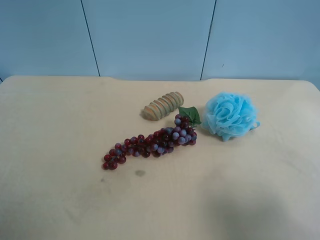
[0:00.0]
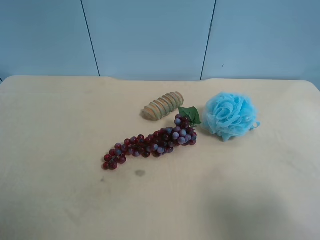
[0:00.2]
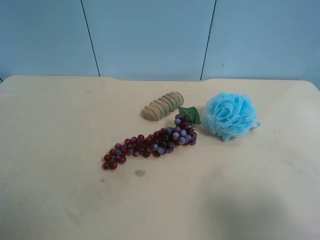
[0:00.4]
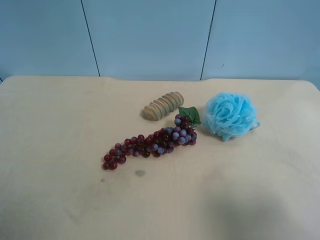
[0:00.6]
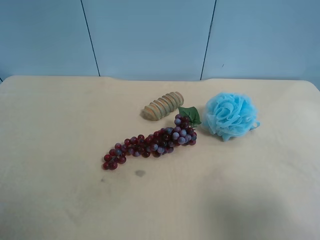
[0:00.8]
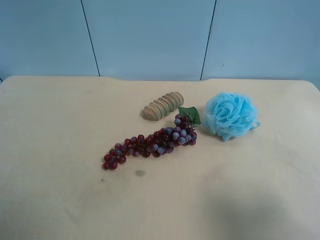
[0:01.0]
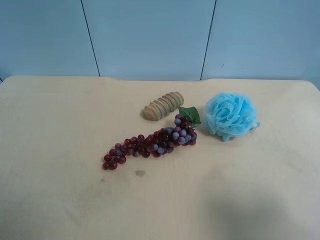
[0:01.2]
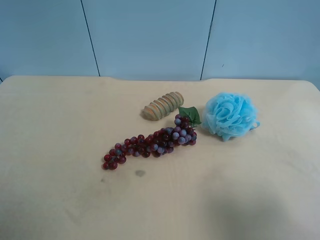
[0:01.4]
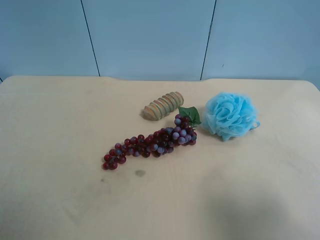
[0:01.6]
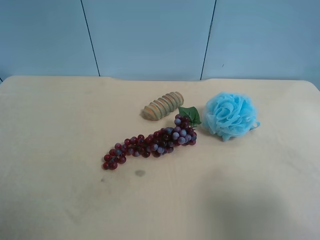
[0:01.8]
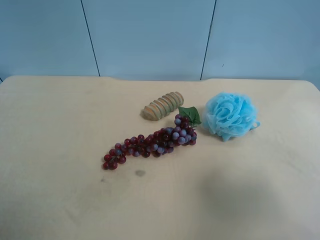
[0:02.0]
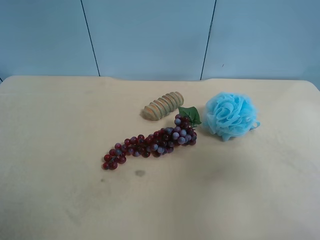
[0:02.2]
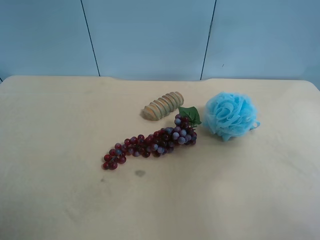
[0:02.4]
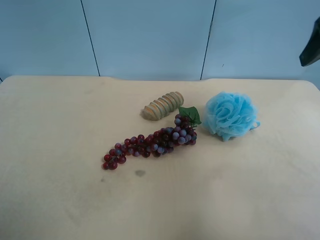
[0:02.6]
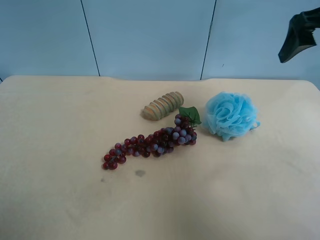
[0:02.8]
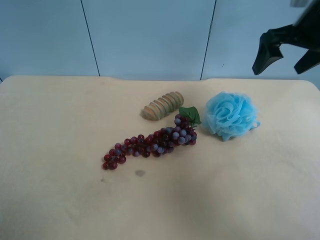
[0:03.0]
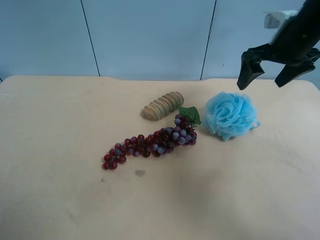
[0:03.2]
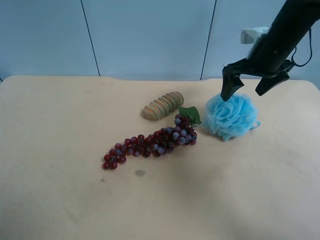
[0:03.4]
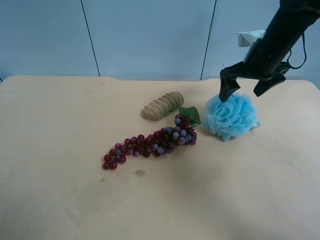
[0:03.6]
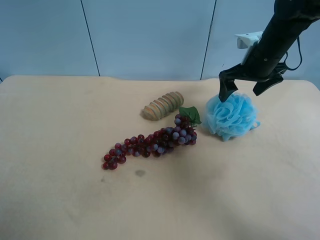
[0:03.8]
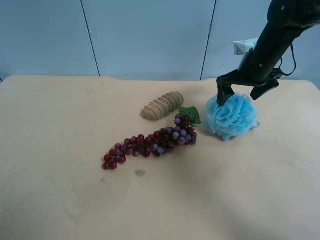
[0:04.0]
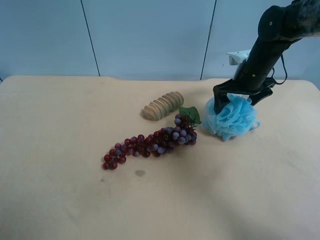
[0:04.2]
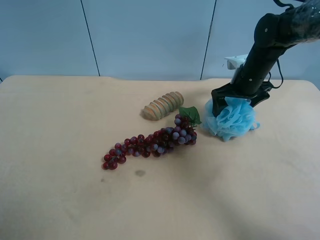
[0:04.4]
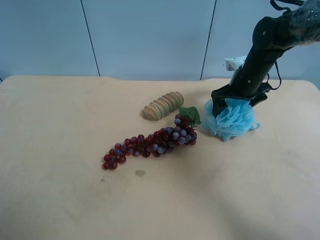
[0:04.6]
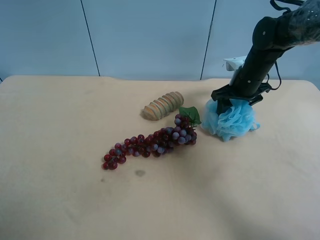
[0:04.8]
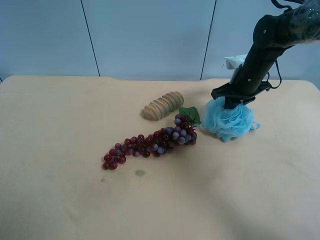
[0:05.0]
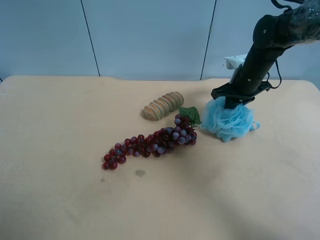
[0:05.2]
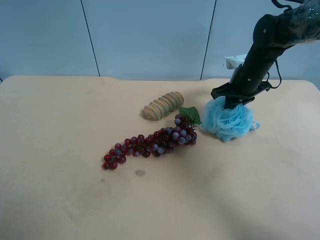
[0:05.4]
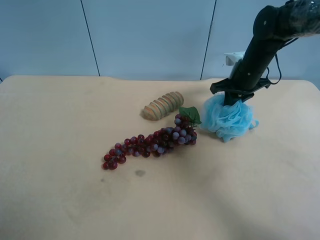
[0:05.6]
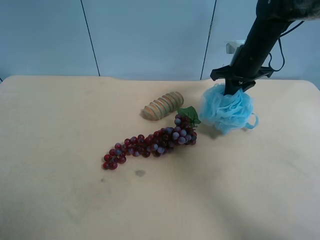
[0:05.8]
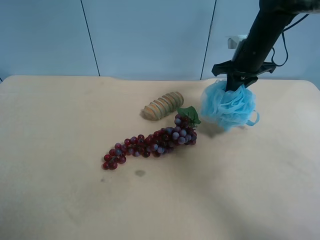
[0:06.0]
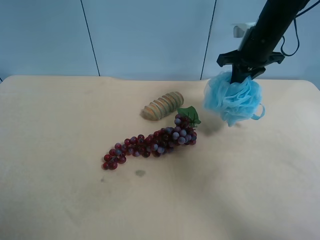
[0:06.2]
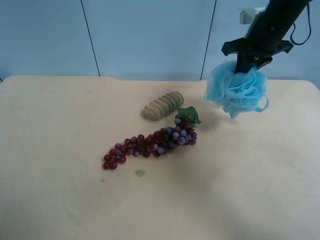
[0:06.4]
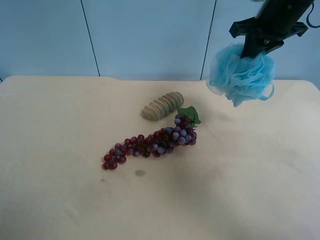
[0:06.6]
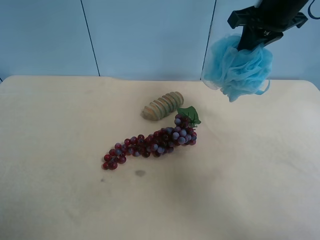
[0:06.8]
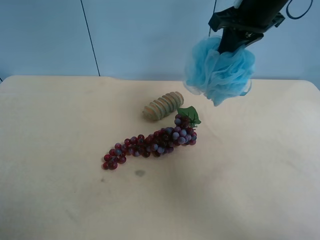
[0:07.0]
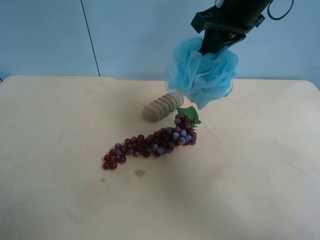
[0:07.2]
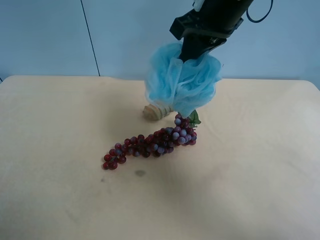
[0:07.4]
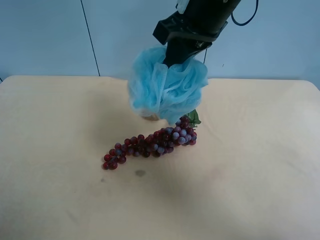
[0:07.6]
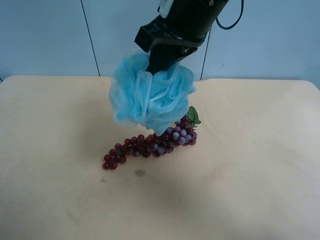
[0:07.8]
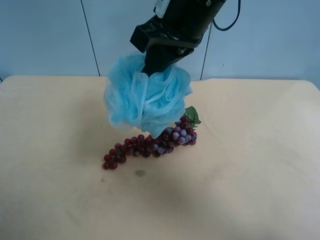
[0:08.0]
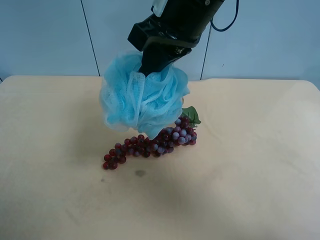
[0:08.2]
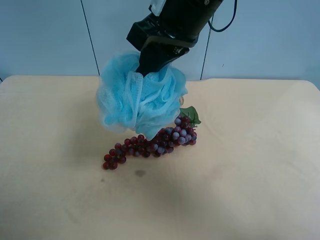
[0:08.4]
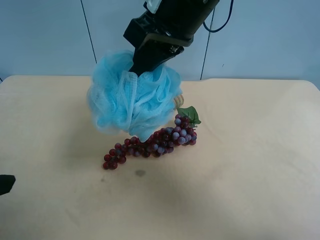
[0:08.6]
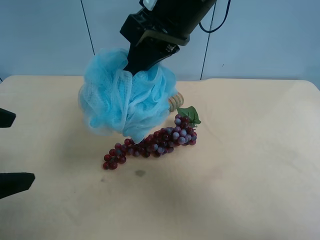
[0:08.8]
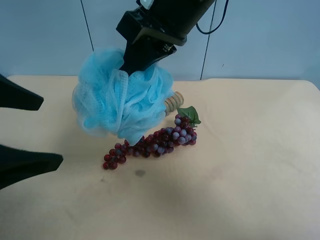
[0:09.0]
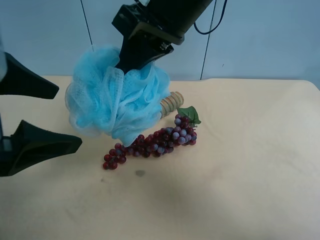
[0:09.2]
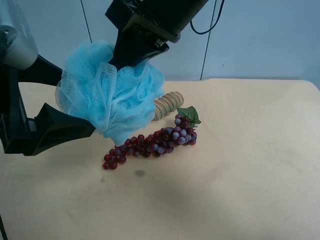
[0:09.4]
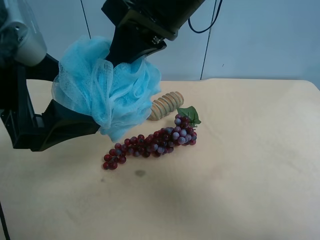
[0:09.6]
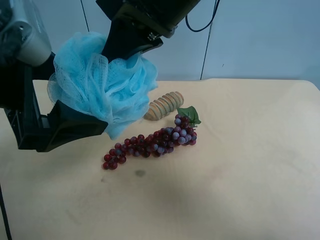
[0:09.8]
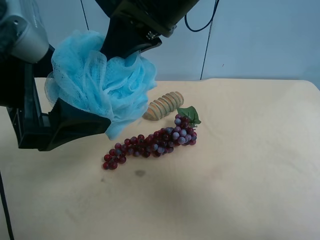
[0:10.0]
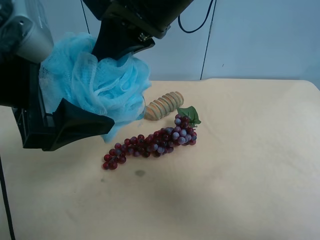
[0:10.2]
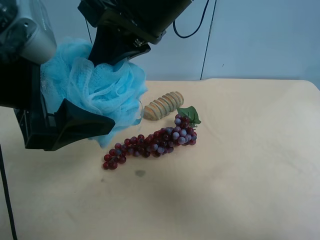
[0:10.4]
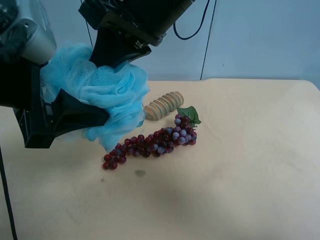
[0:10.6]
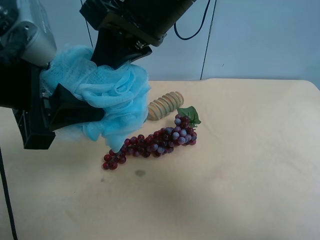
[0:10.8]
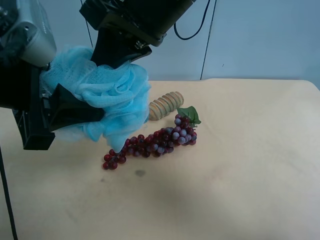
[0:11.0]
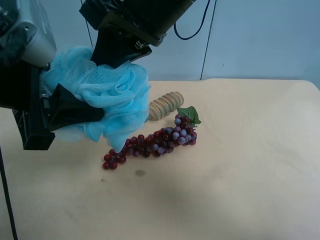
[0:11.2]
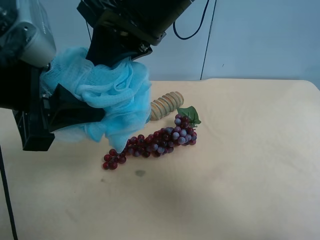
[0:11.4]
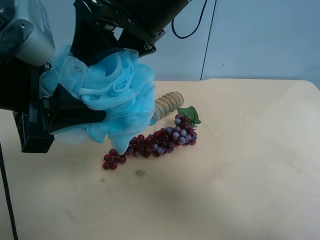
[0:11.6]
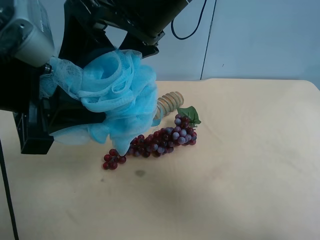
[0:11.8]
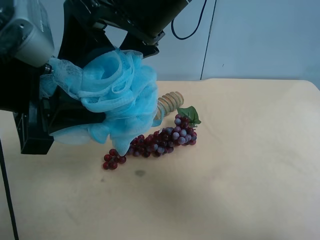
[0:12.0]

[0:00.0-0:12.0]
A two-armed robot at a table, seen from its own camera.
Task of the whole recording: use the right gripper to pick up the item and transfer it from the right gripper to the left gripper.
0:00.0 to 0:01.6: Neither gripper changes place.
0:01.6 to 0:03.0: The right gripper shifts about 35 cm forward.
0:03.0 to 0:04.4: The right gripper shifts some 15 cm downward and forward.
0:04.4 to 0:06.0: The right gripper heads upward, covering about 5 cm, and closes up.
0:06.0 to 0:07.6: The right gripper goes some 20 cm to the left, backward and upward.
0:07.6 to 0:09.0: The left gripper is displaced forward and to the right by about 15 cm.
0:09.0 to 0:10.4: The left gripper ends up approximately 5 cm from where it was.
0:10.4 to 0:12.0: The right gripper opens its fingers. Meanwhile the left gripper closes up.

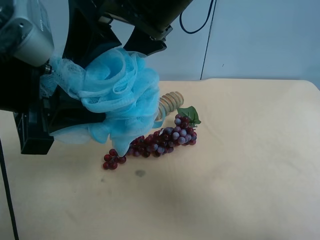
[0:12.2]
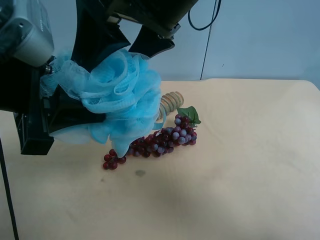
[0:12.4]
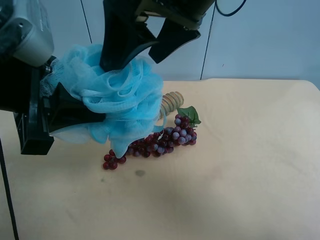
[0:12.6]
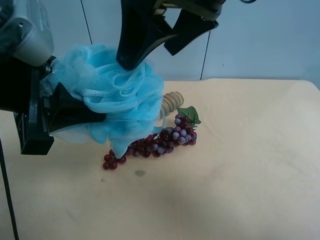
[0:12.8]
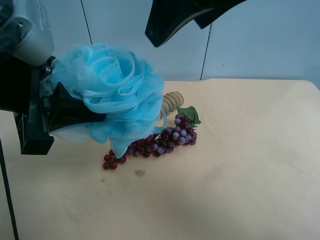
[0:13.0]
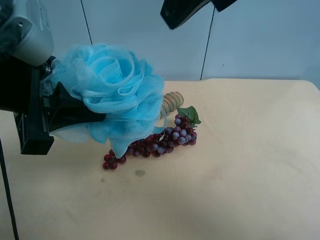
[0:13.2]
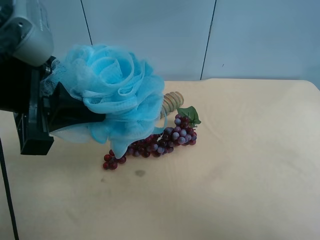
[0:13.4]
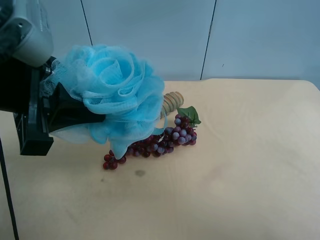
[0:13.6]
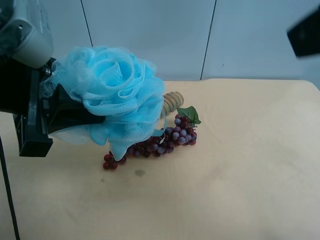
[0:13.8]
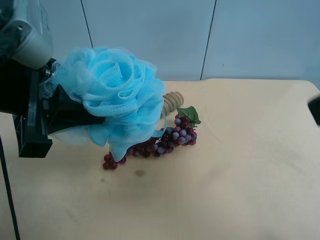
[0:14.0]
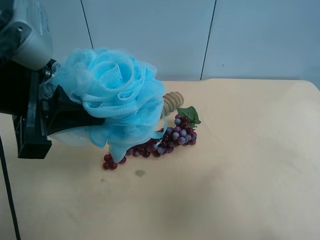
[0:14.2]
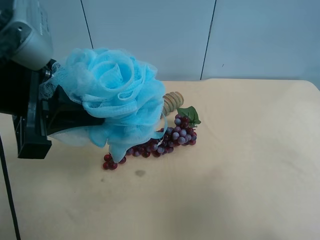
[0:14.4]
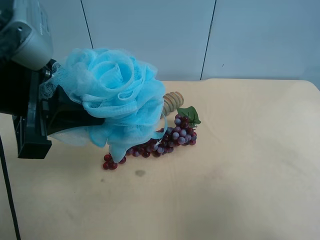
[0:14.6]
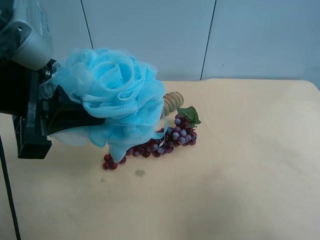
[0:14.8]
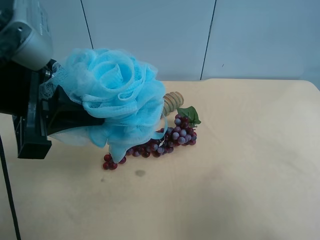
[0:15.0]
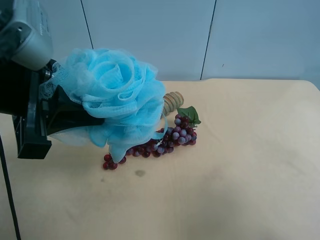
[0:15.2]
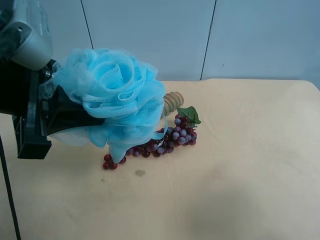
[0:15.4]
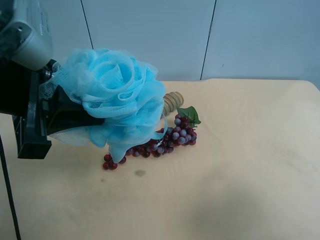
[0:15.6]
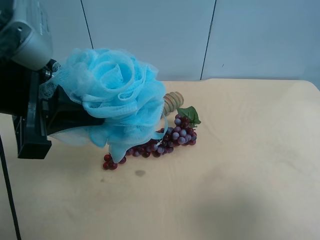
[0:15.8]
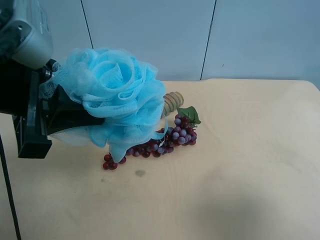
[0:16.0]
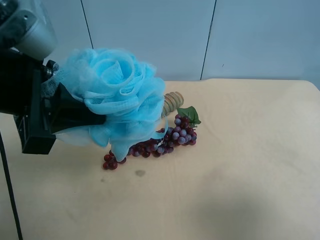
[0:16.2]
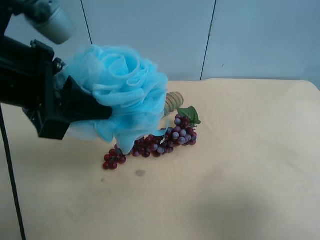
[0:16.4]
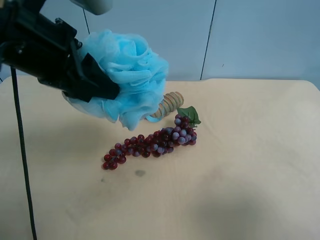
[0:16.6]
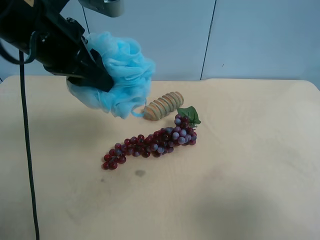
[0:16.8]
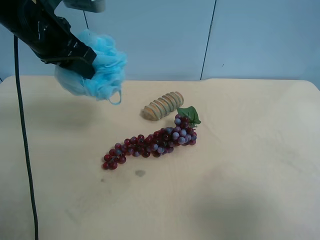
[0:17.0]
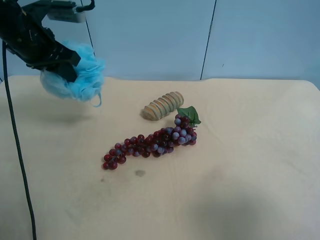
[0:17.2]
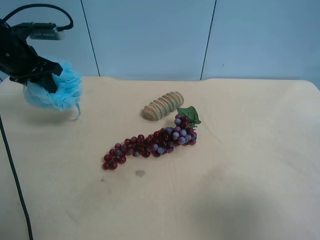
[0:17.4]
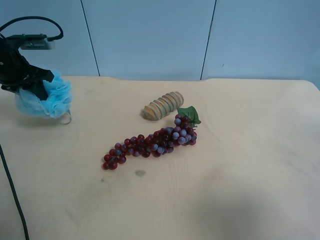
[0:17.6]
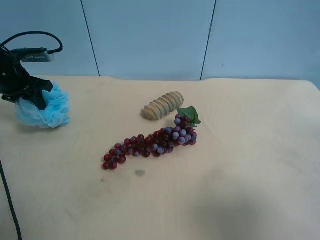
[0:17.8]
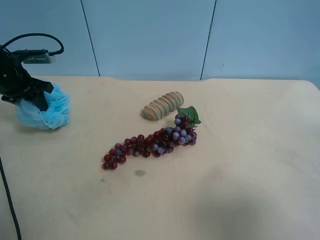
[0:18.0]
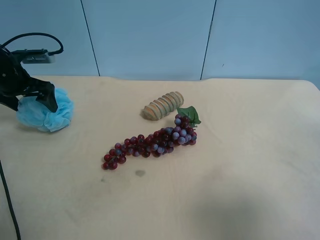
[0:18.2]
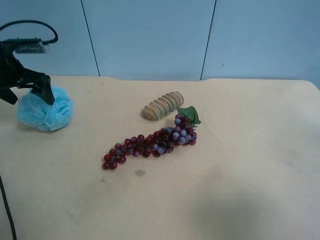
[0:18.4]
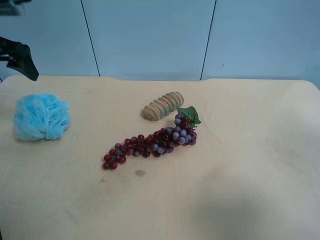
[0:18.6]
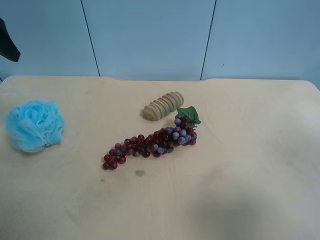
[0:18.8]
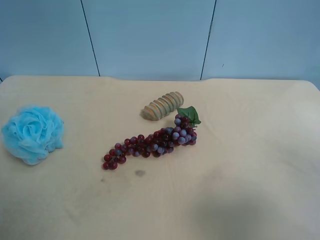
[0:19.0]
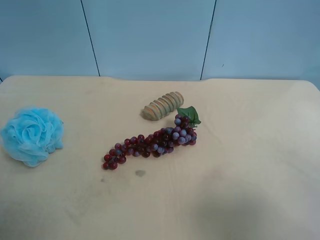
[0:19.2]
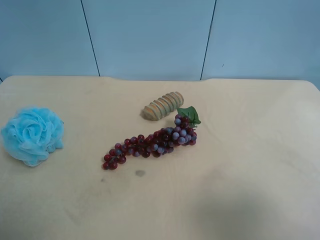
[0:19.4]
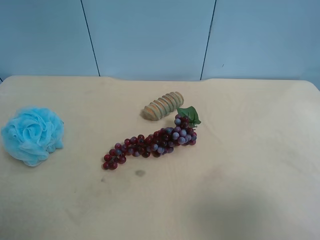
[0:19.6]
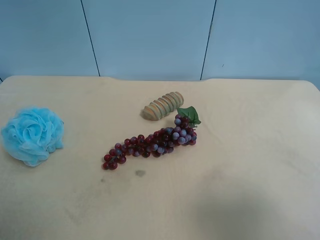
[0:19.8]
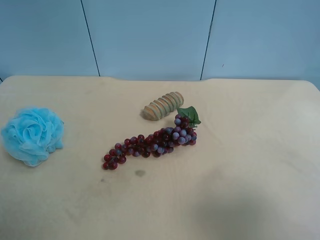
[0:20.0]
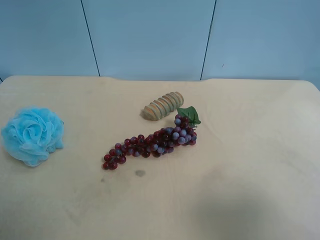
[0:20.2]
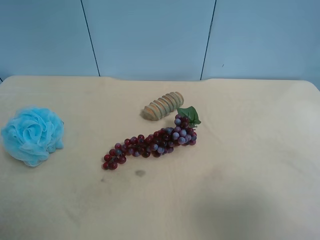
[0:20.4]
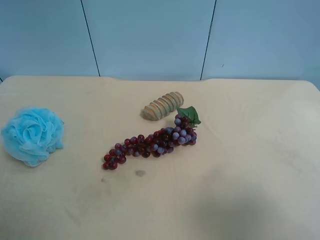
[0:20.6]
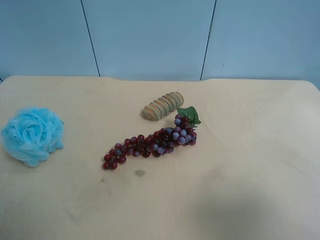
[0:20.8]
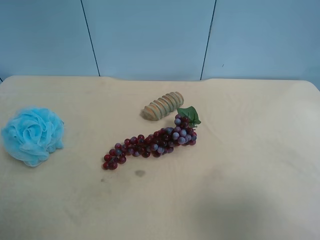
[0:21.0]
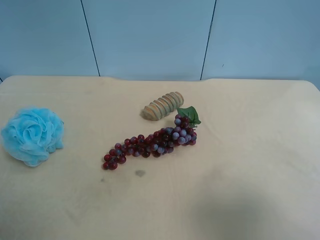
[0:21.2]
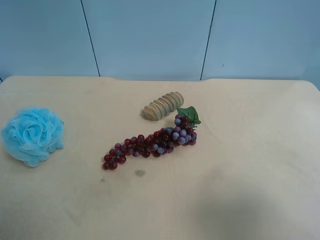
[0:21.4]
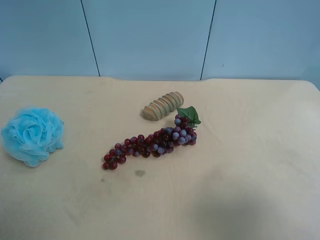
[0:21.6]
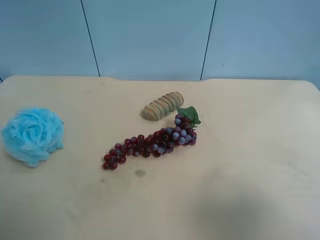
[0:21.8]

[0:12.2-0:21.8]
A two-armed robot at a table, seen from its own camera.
Task of the whole recording: use the right gripper to pick up the item and transfer it from the right gripper to the left gripper.
0:12.2 to 0:13.8: The right gripper moves to the right and backward, approximately 25 cm.
0:13.8 to 0:15.4: The right gripper heads downward, backward and to the right, covering about 20 cm.
0:15.4 to 0:17.0: The left gripper shifts some 15 cm forward.
0:17.0 to 0:18.6: The left gripper moves to the left, approximately 15 cm, and opens up.
0:18.6 to 0:20.2: The left gripper travels backward by approximately 35 cm.
0:20.2 to 0:21.8: Both grippers stay about where they are.
